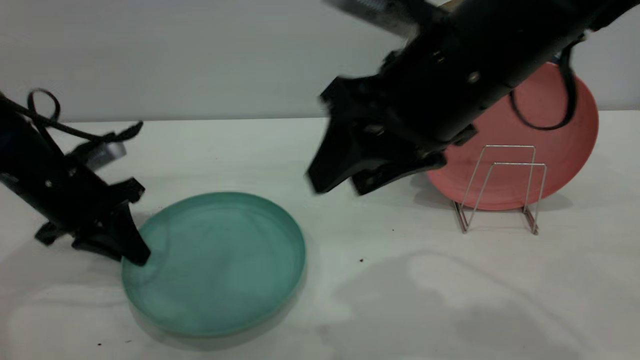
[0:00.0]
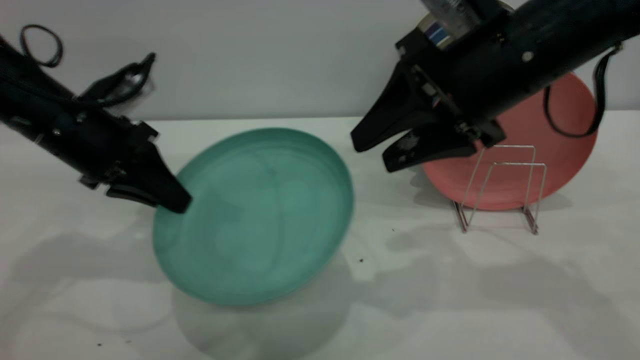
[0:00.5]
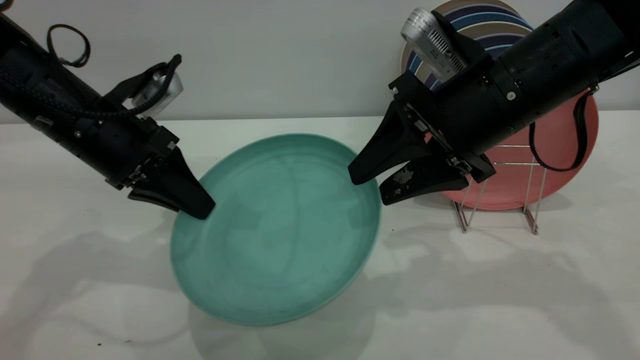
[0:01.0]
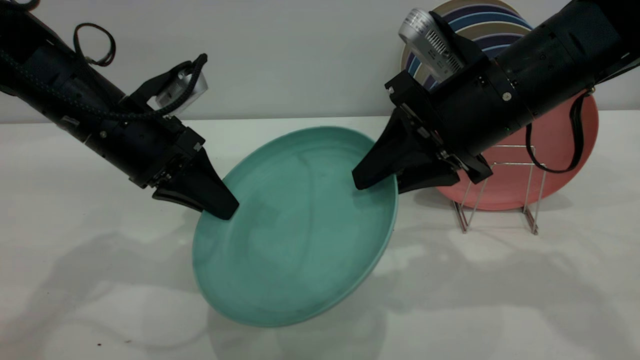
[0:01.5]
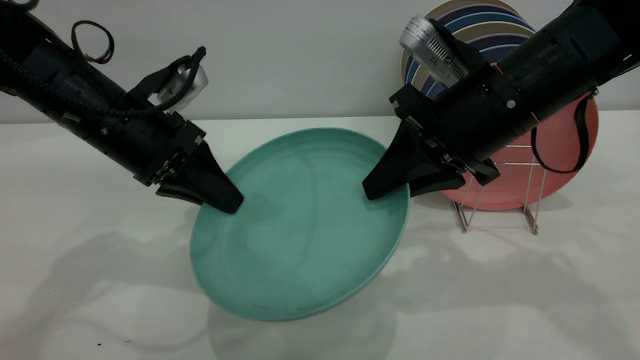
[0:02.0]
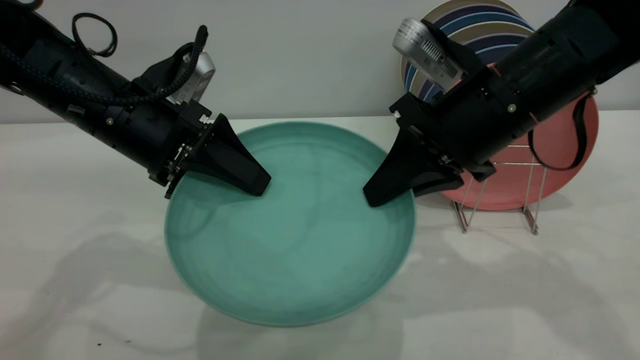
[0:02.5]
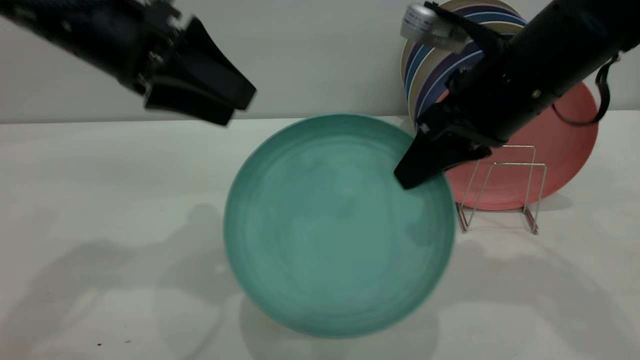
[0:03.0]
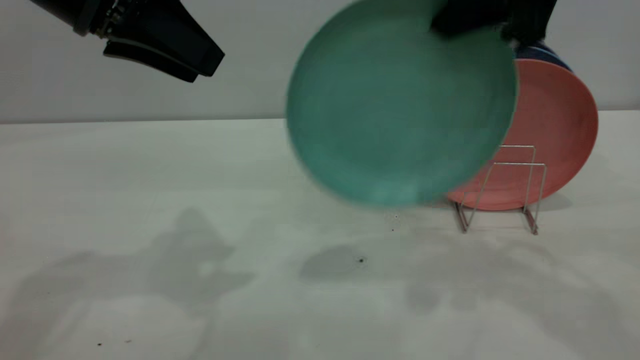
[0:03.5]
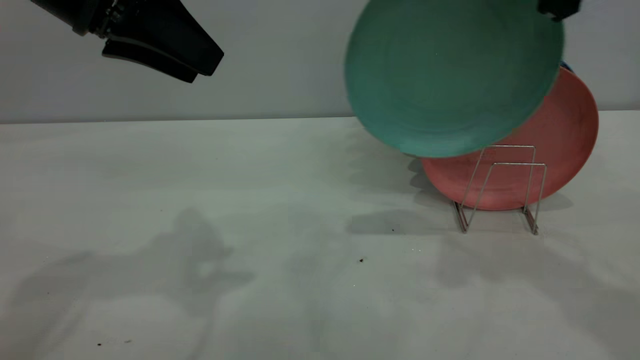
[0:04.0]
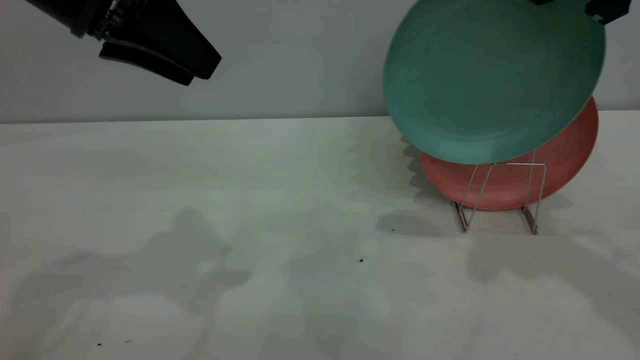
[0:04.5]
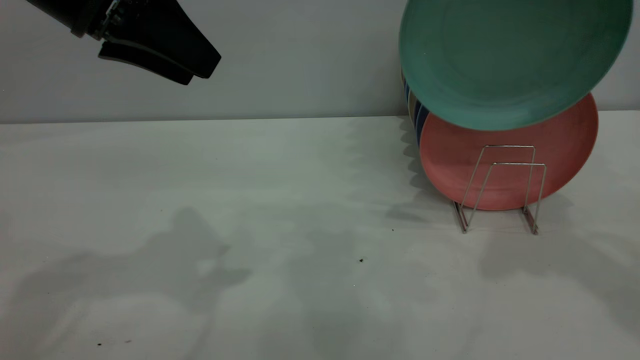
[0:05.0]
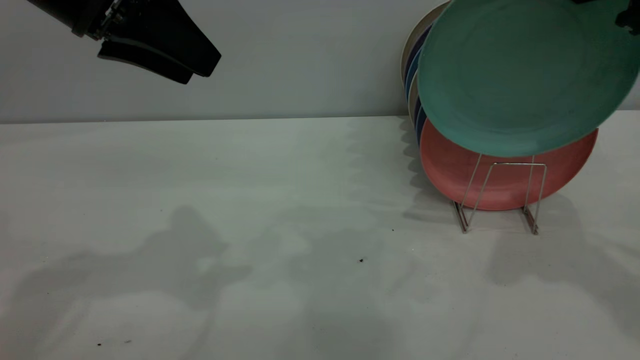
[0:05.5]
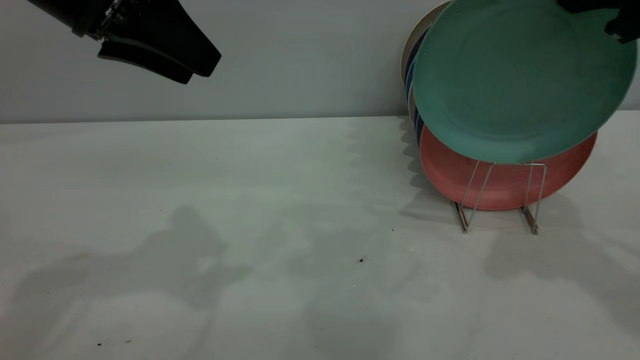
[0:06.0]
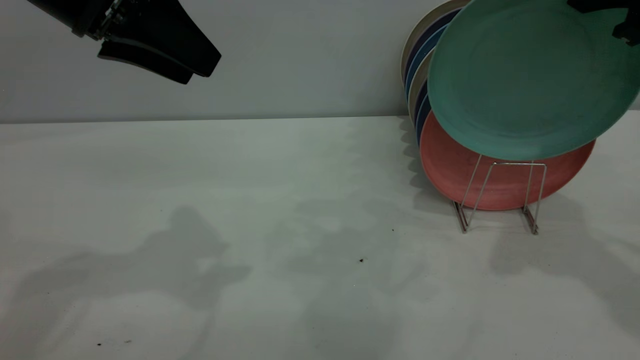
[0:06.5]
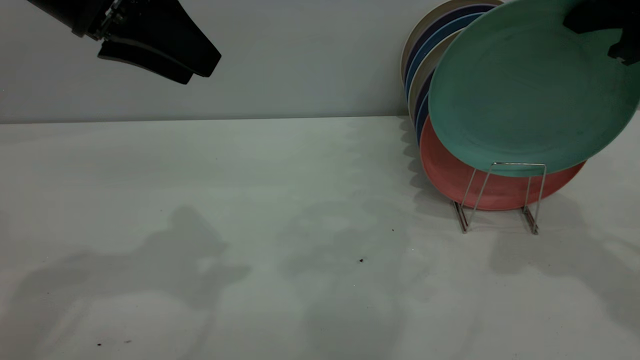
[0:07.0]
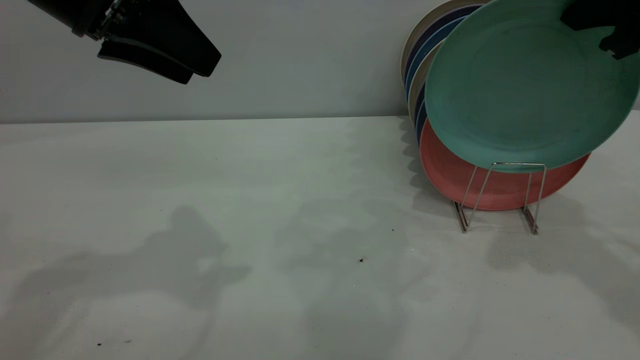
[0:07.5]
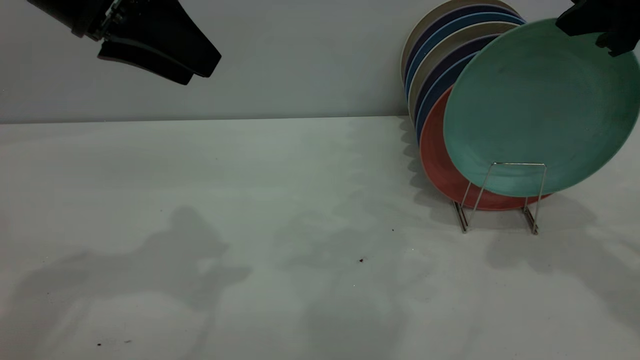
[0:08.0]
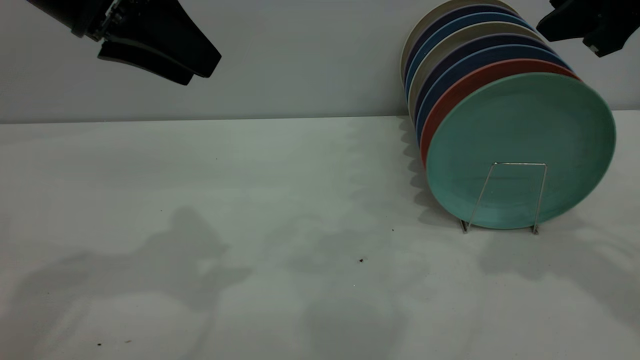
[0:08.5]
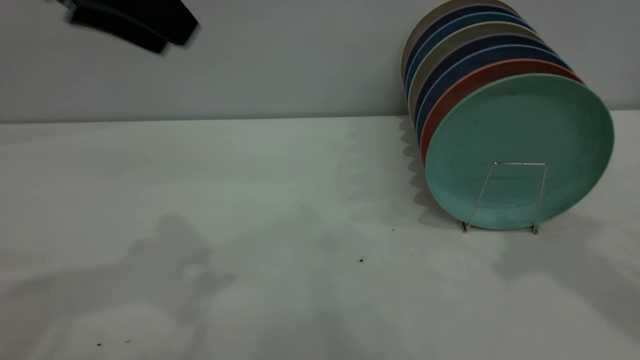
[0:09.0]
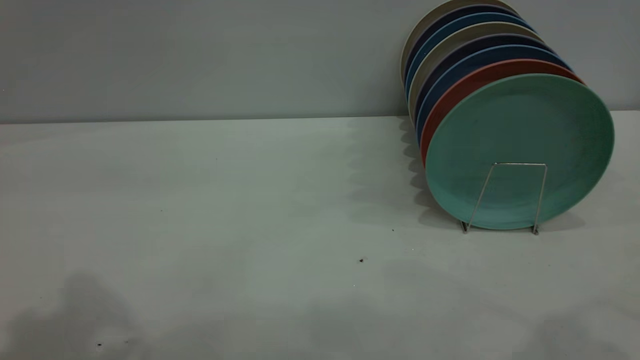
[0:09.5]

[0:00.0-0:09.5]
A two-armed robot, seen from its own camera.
Task of the whole recording: the left gripper grasp the green plate, the left gripper pass the green plate to the right gripper, and the right gripper place the green plate on the plate rack.
Step, 0:00.5 to 0:02.5: Pass the plate from the left gripper to the right gripper.
Step, 0:03.5 to 0:08.5: Place the plate on the shelf.
0:00.0 to 0:02.0: The left gripper shifts approximately 10 cm to the right and upward; the right gripper is displaced downward and forward by some 10 cm, and closes.
0:02.0 to 0:04.0: The right gripper moves upward and to the right, some 15 cm. Meanwhile the left gripper moves upward, roughly 15 cm, and opens its fingers.
0:04.0 to 0:05.5: The right gripper is displaced to the right by roughly 5 cm.
0:05.5 to 0:07.5: There are only small adjustments of the grippers.
0:07.5 to 0:09.5: The left gripper moves upward and backward, about 20 cm. Meanwhile the right gripper shifts some 20 cm backward and upward, and opens its fingers.
